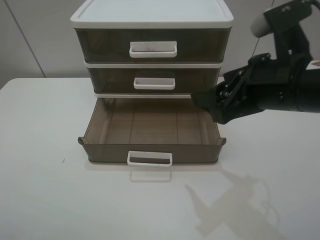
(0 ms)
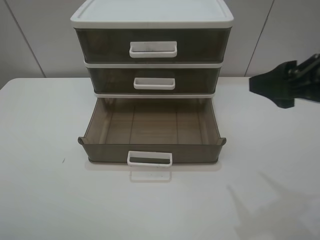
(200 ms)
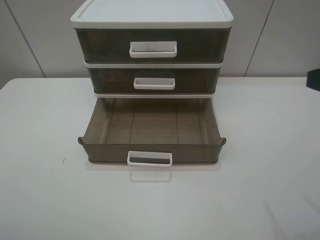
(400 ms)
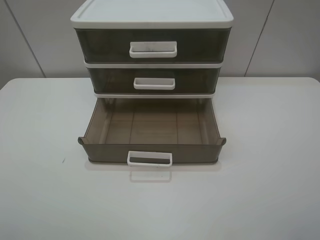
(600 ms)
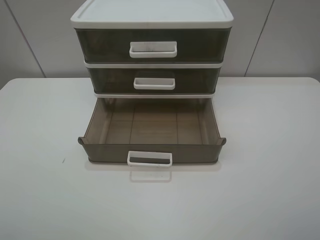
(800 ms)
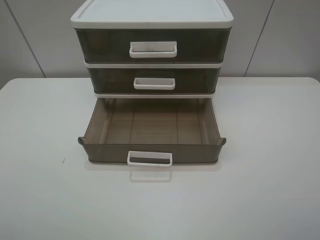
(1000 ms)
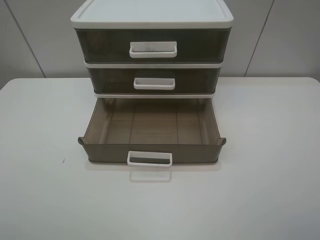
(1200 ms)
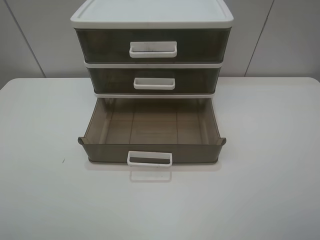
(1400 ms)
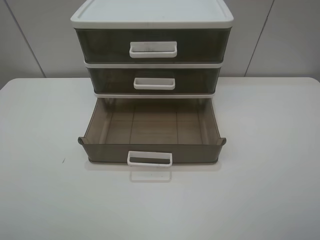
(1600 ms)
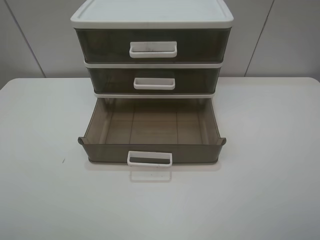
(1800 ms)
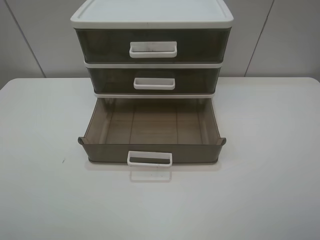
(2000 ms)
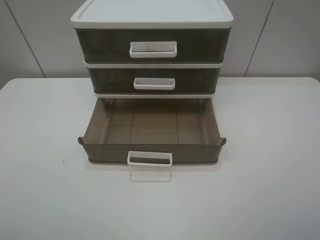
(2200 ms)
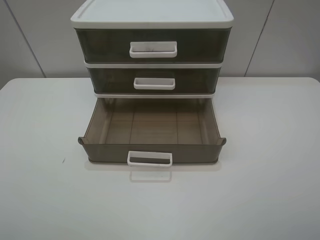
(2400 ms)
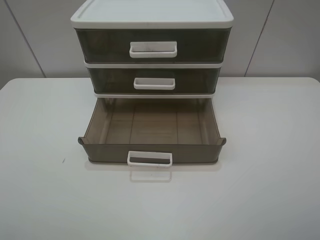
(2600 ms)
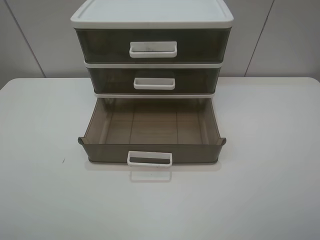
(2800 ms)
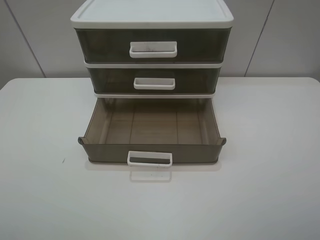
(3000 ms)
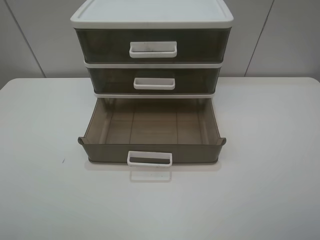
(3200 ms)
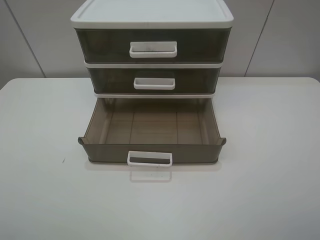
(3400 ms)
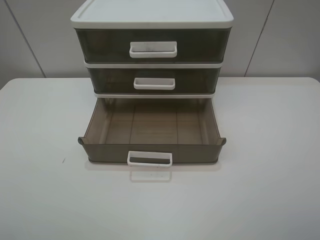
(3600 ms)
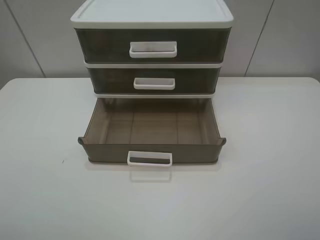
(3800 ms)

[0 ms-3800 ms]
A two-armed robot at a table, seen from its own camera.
Task of the whole recording: open the bottom drawer.
0 ms to 1200 ms: The right gripper heads backward and to the right, covering approximately 25 cm.
